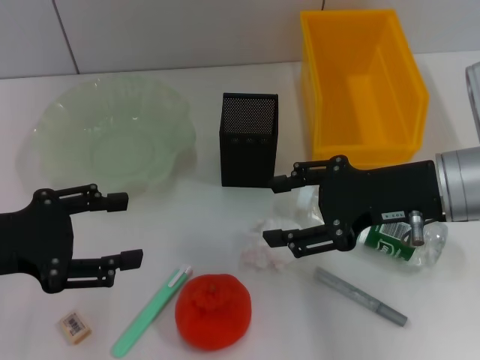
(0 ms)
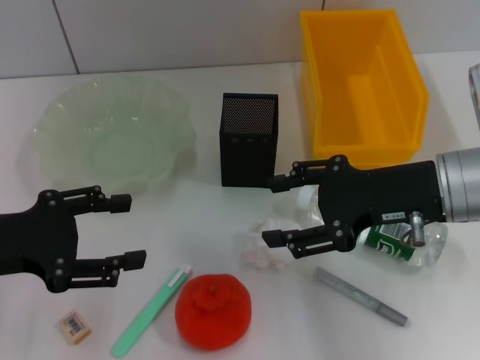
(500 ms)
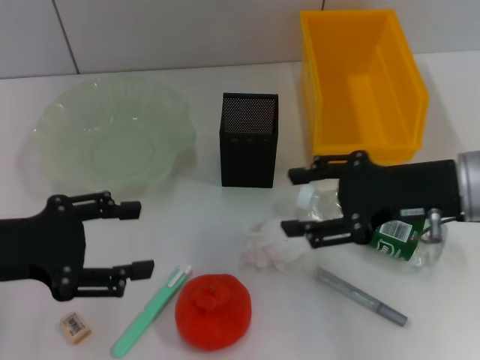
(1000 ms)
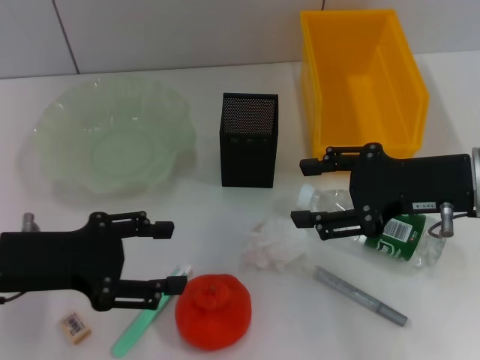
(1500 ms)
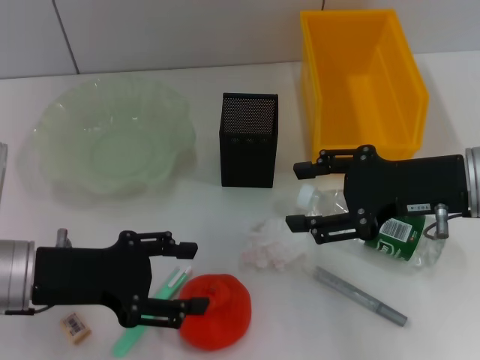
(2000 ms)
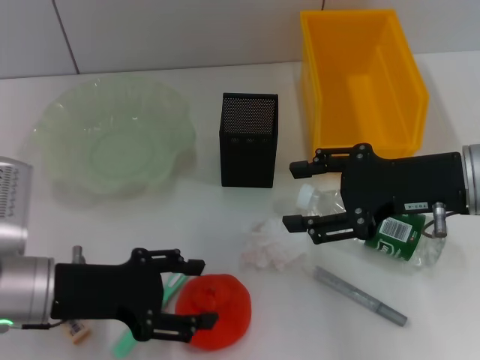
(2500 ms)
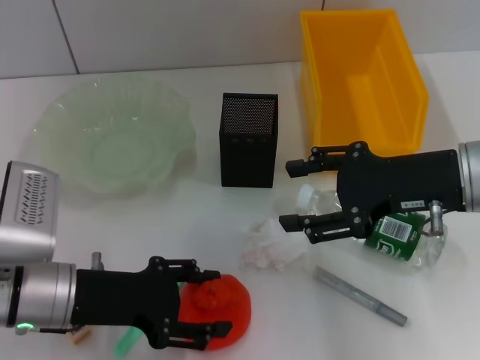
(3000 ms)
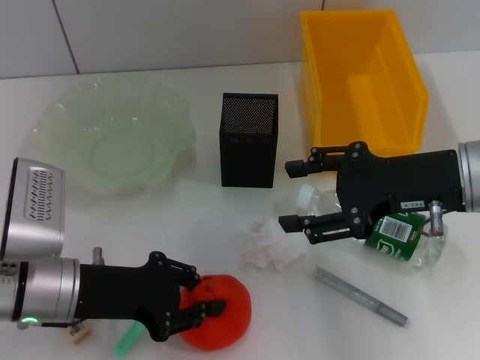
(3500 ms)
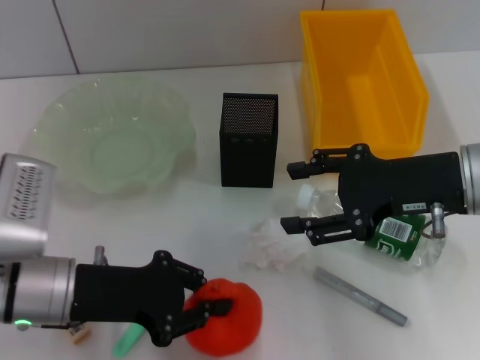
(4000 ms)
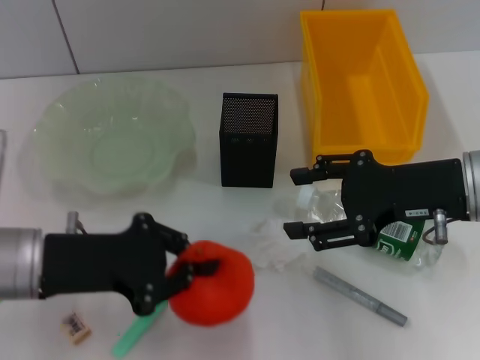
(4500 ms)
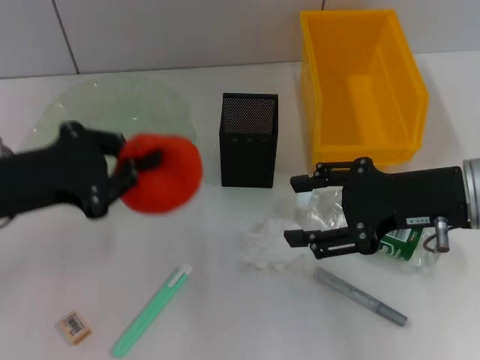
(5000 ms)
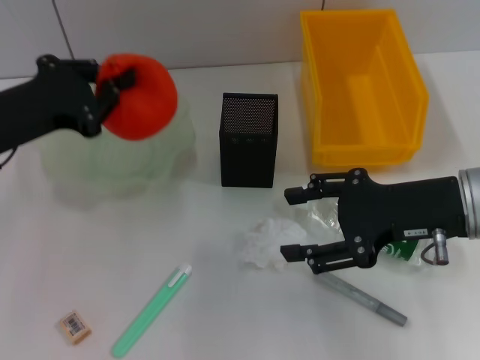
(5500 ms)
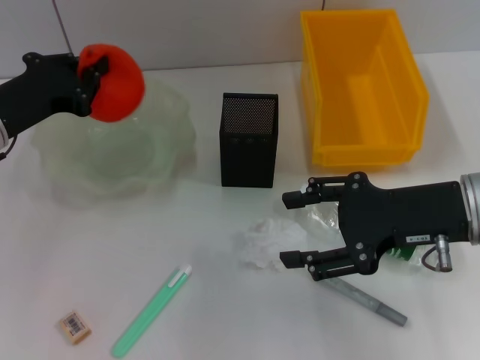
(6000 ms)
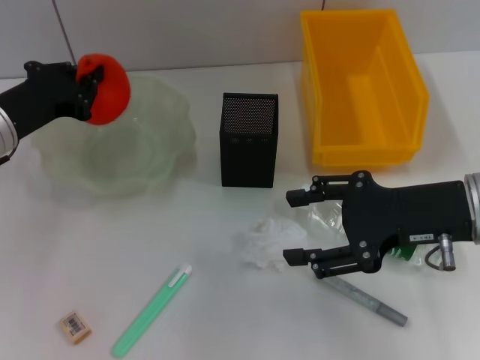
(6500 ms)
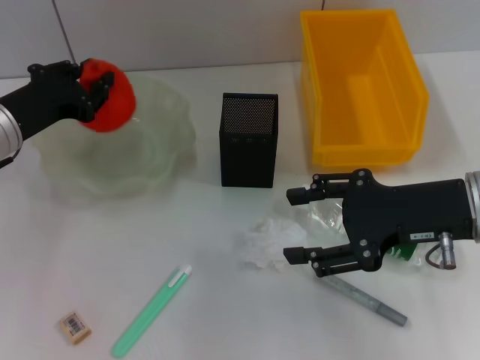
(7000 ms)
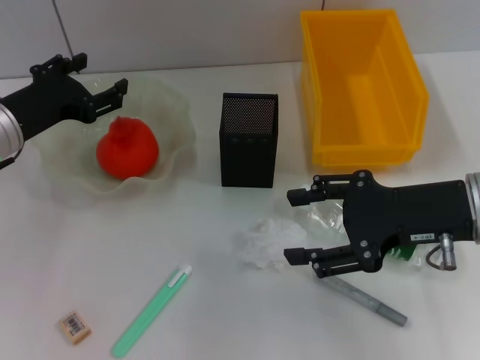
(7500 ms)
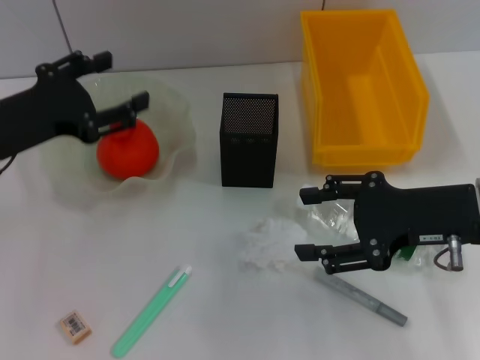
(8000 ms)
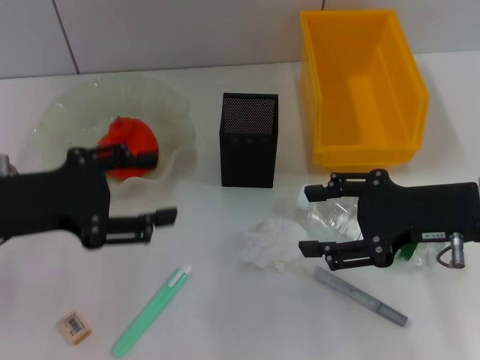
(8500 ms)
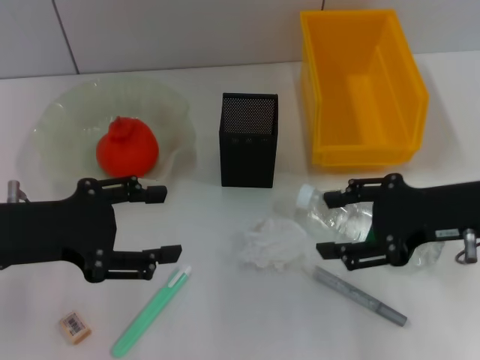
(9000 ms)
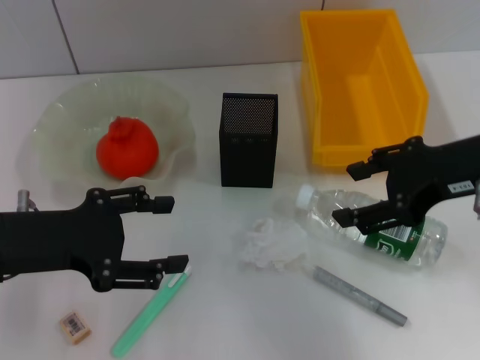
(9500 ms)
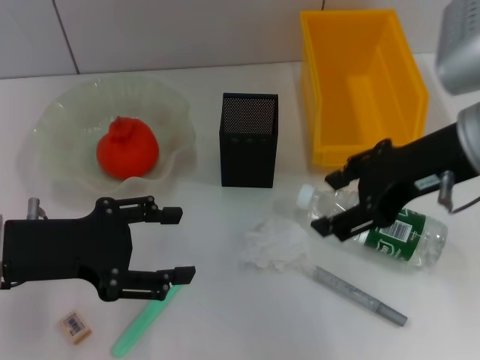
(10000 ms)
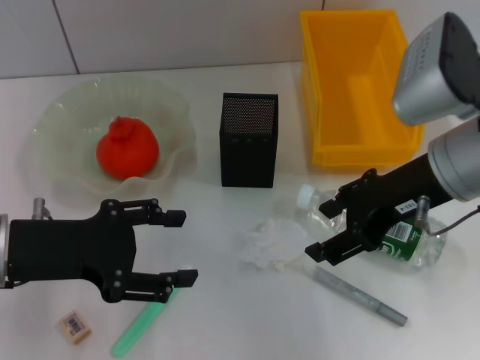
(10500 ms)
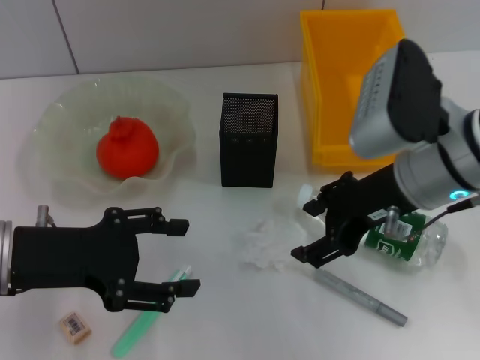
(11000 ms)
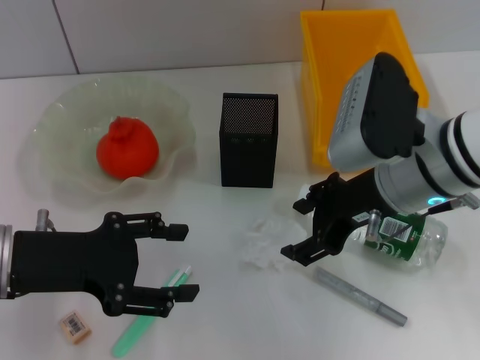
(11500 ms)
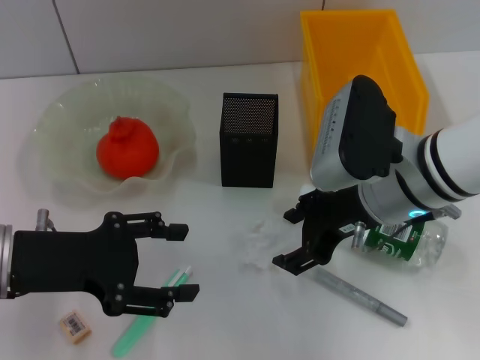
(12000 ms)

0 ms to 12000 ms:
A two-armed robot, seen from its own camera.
Step, 0 ms to 3500 ms: Grab the orange with the left hand.
Step, 4000 ms to 7000 ms: Place the orange into the fruit bowl with the left hand.
0 ms to 2000 ms: The left gripper goes some 5 cm to the right.
2000 ms to 4000 ms: The left gripper closes.
4000 ms to 6000 ms: The left gripper goes about 10 cm forward and to the left.
6000 ms to 8000 ms: The left gripper opens its fingers.
8000 ms to 10000 ms: The left gripper is displaced backward by about 5 cm. Meanwhile the right gripper travels upward by some 10 cm.
10000 ms to 12000 ms: The right gripper travels downward and to the left by approximately 10 cm.

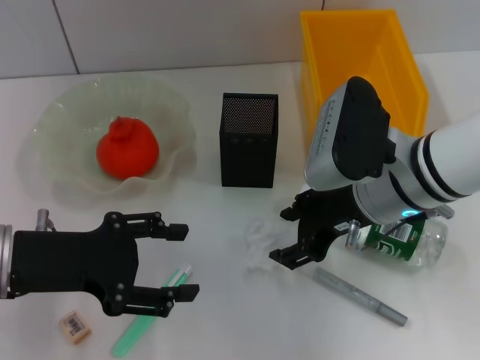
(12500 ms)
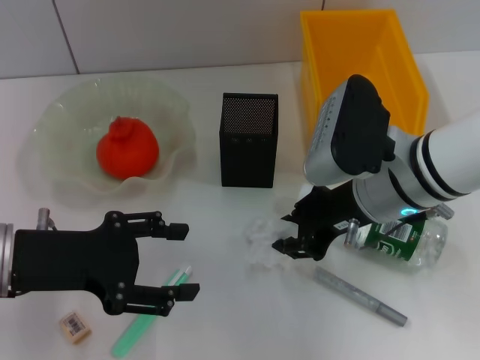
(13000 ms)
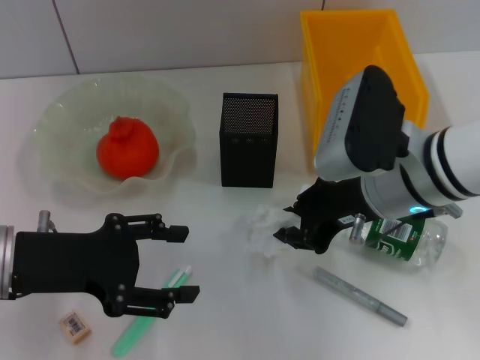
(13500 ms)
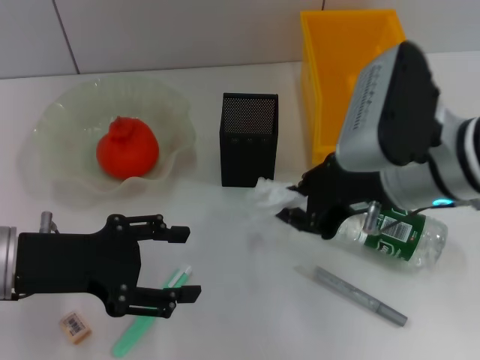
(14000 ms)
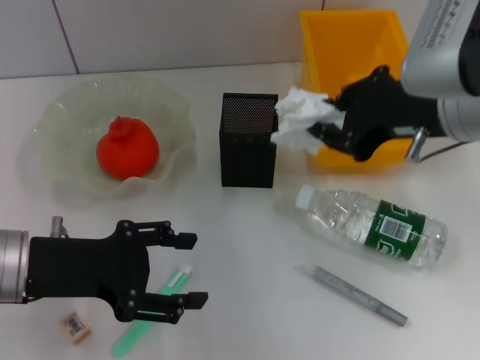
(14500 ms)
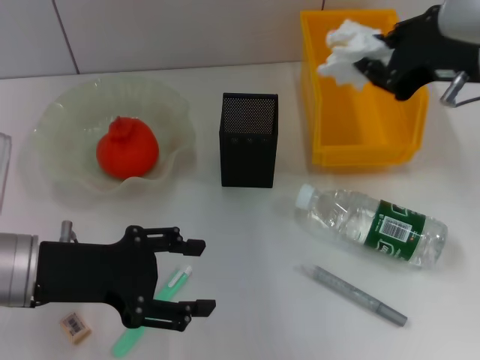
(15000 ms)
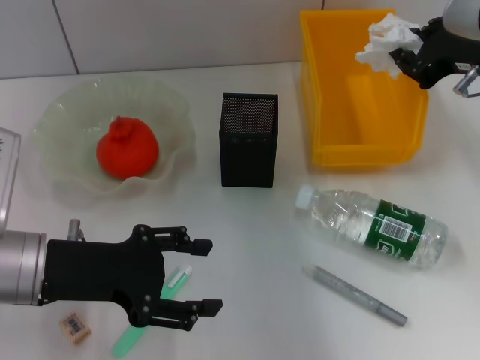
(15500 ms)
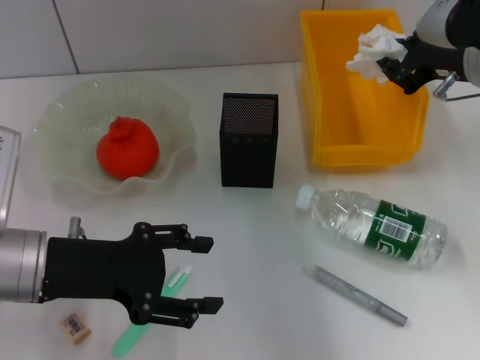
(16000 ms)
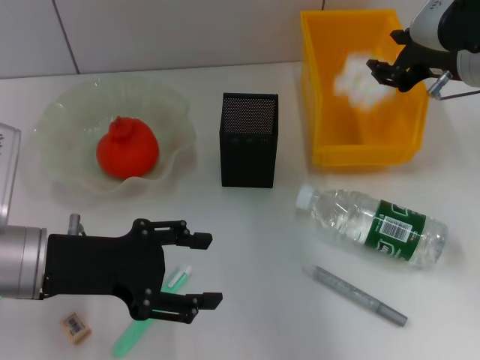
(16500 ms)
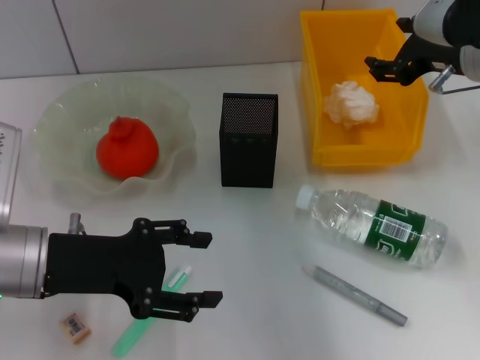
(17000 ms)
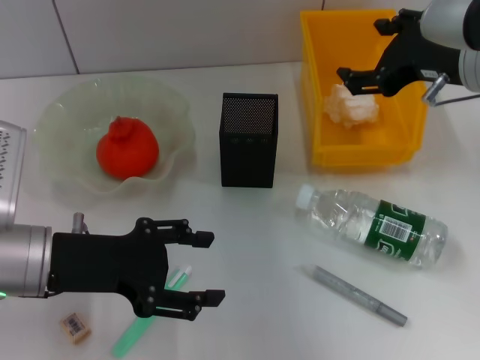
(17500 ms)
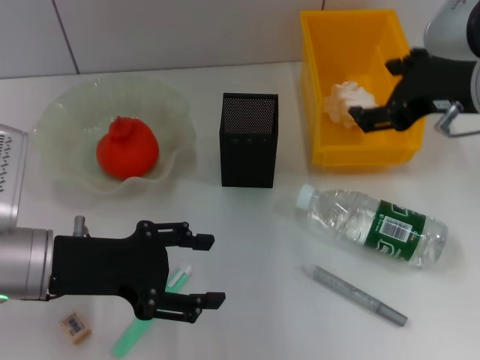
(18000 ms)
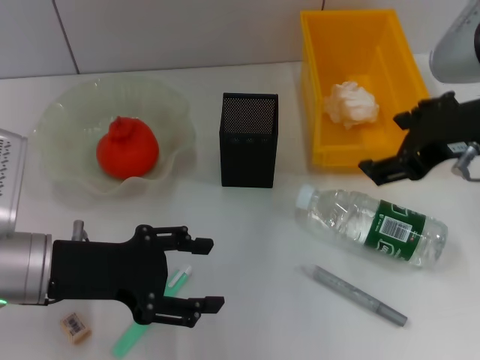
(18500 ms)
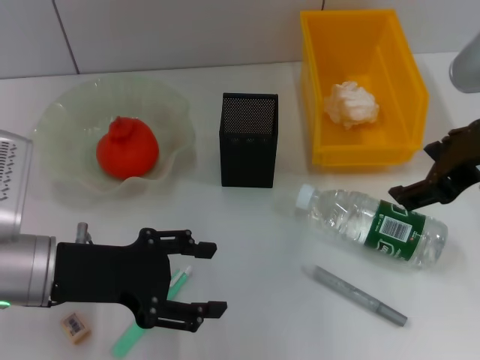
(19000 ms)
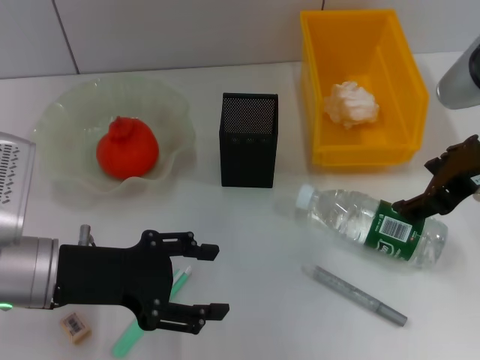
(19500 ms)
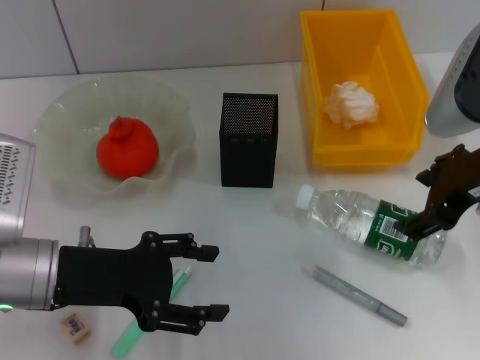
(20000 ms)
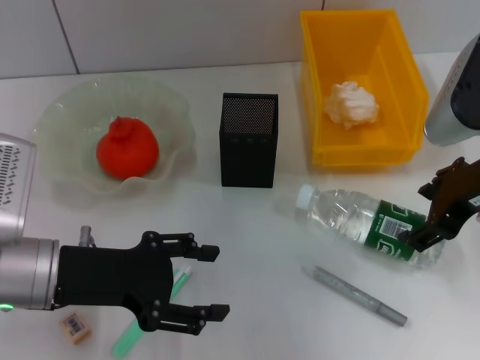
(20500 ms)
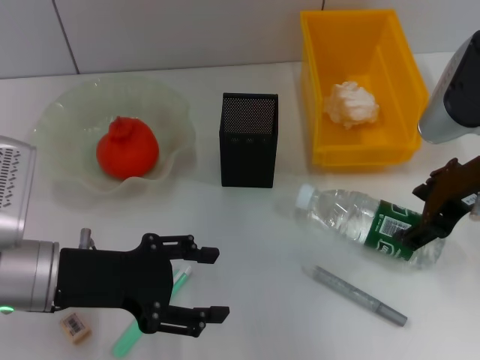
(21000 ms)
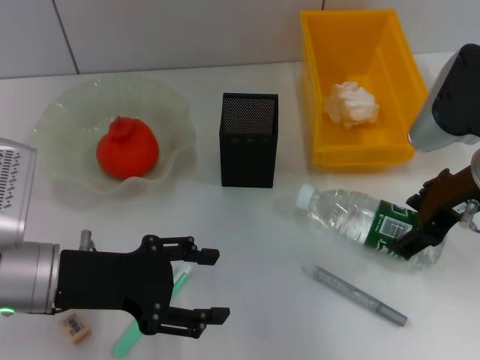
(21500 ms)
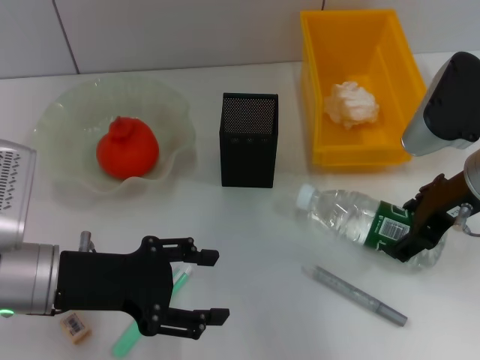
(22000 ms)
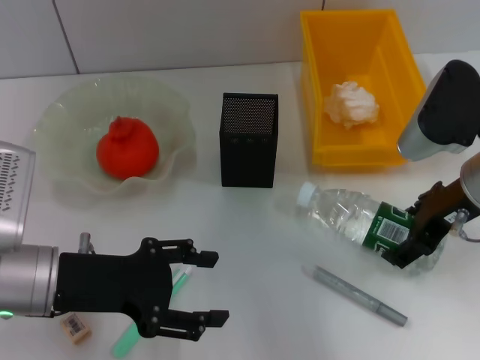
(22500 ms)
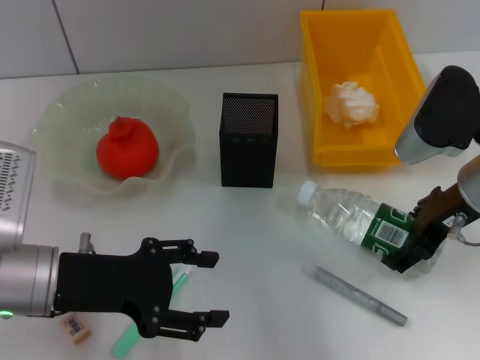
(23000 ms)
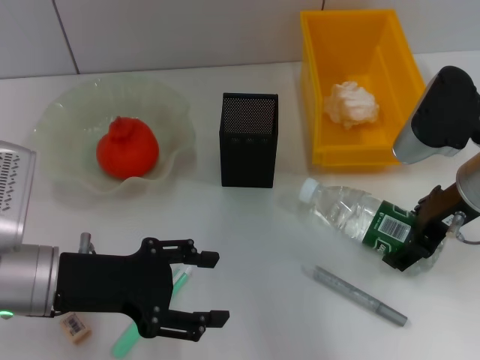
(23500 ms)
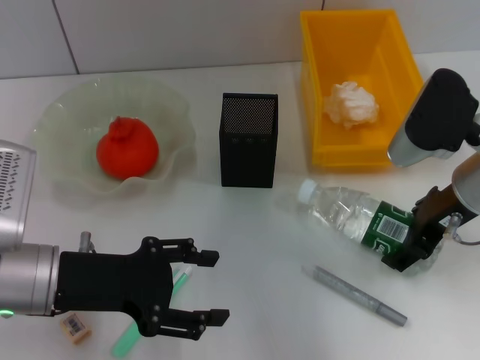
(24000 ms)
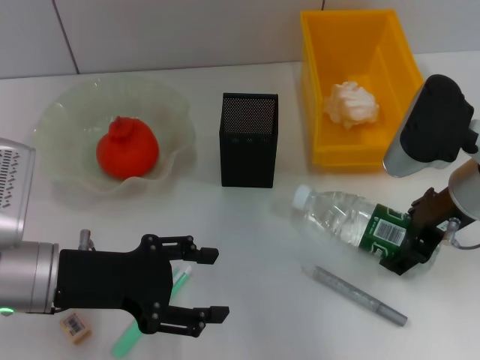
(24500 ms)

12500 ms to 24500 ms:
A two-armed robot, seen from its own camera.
Step, 13500 ms to 16500 ms: Place the paper ball into the trash can with the right hand.
12500 ms to 14500 ms: The right gripper is displaced upward by approximately 10 cm, and closes its fingers.
14500 ms to 16500 ms: The right gripper is displaced forward and to the right by approximately 10 cm.
16500 ms to 18500 ms: The right gripper moves backward, some 10 cm, and opens up.
18500 ms to 20500 ms: The right gripper shifts by some 5 cm.
20500 ms to 22500 ms: The grippers stay close to where they were, moving slightly.
22500 ms to 24500 ms: The two grippers keep their place.

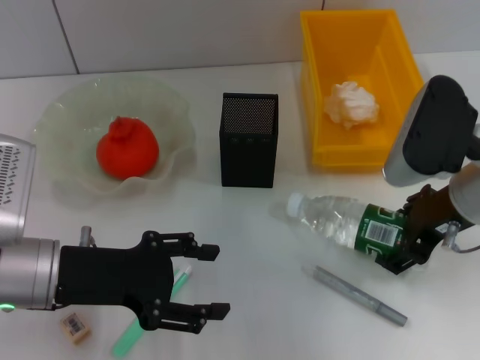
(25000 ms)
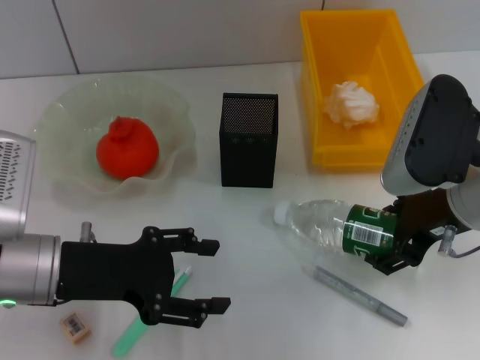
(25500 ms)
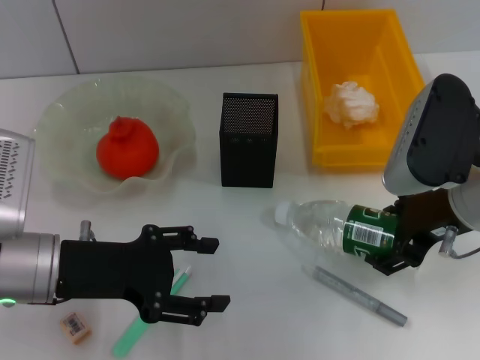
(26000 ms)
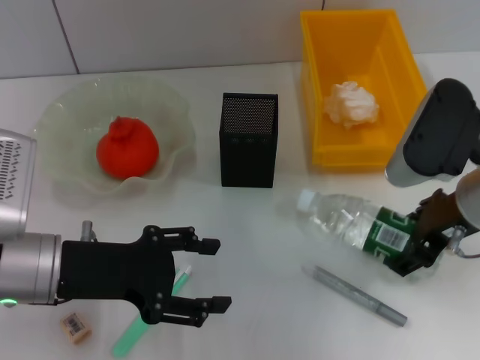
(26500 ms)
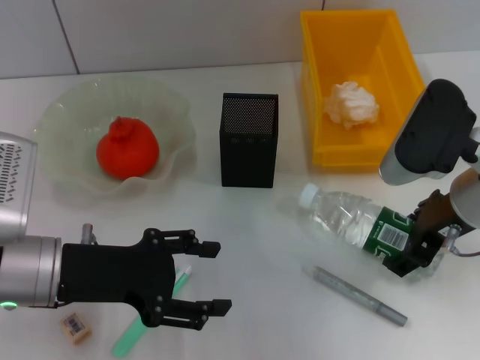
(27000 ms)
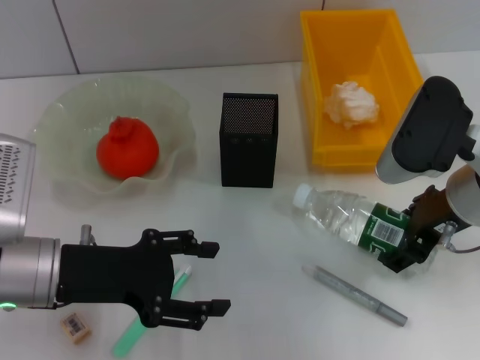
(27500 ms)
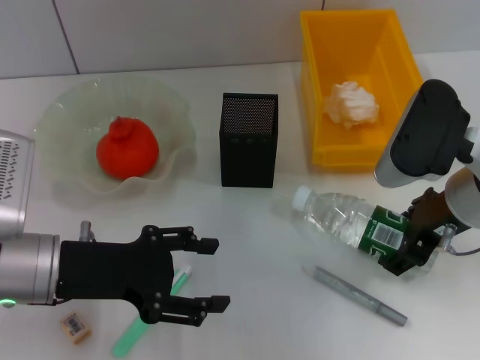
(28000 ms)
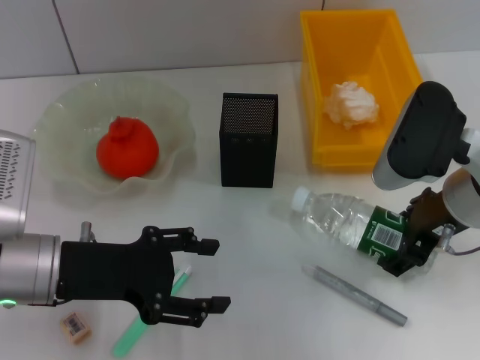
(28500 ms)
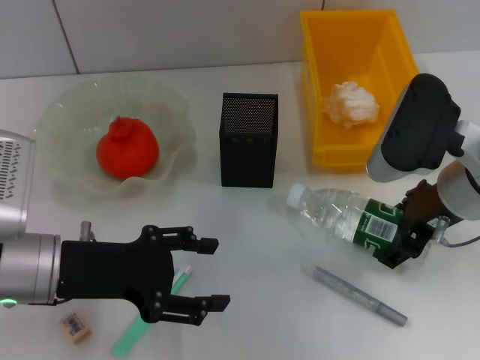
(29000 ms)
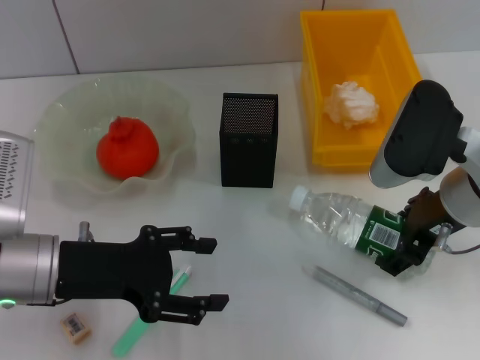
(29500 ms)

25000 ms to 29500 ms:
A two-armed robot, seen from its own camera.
25000 ms to 27000 ms: The grippers move only a little.
27000 ms to 29500 ms: Neither gripper changes place.
